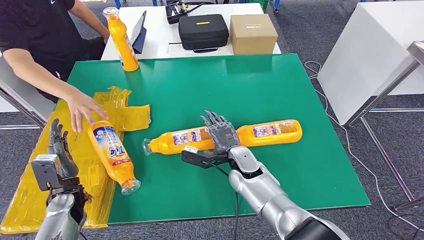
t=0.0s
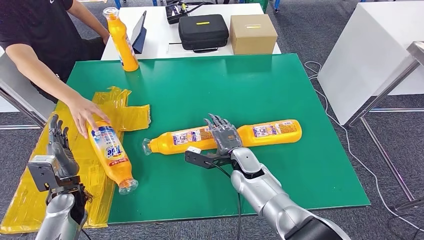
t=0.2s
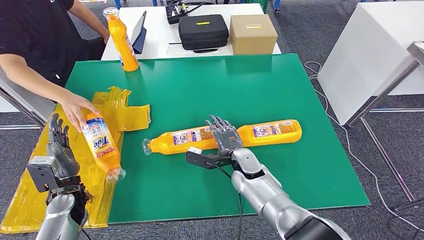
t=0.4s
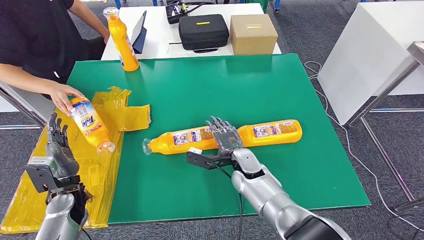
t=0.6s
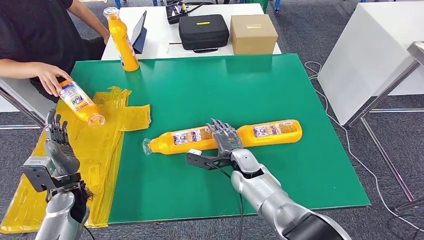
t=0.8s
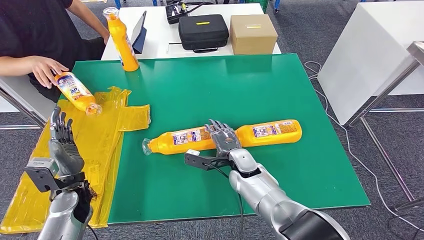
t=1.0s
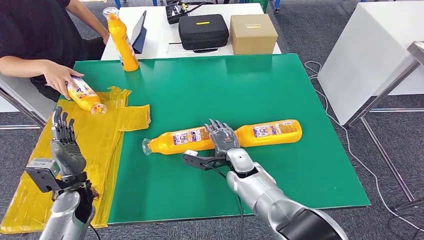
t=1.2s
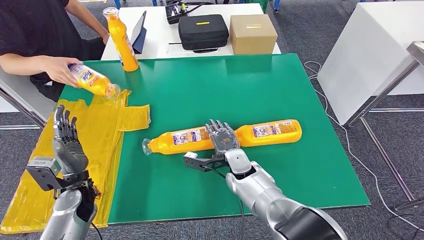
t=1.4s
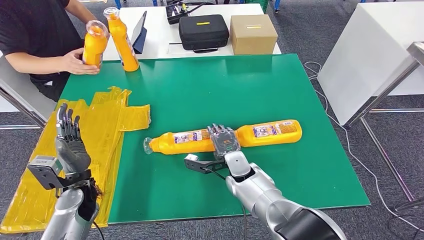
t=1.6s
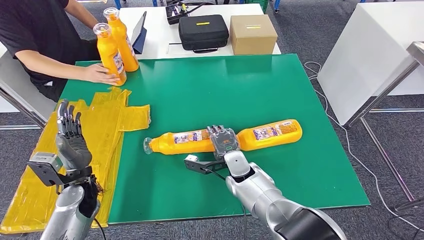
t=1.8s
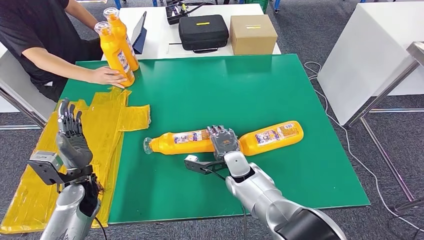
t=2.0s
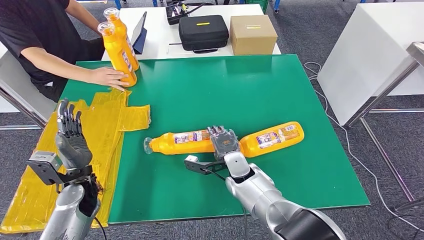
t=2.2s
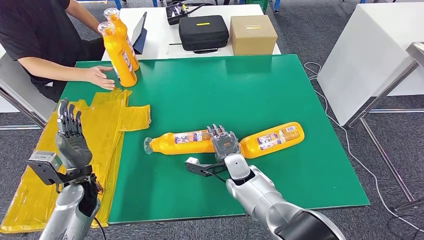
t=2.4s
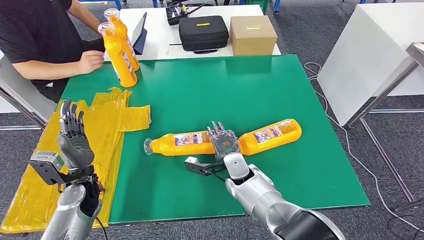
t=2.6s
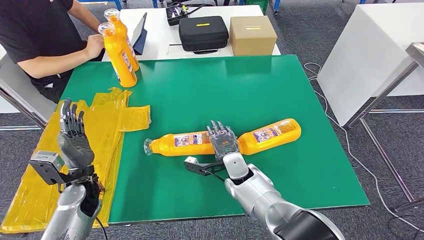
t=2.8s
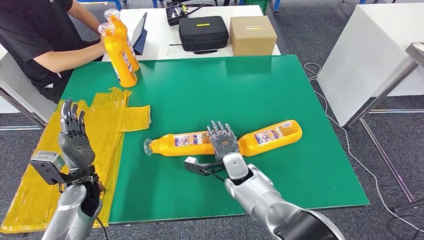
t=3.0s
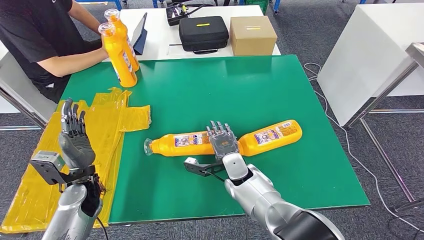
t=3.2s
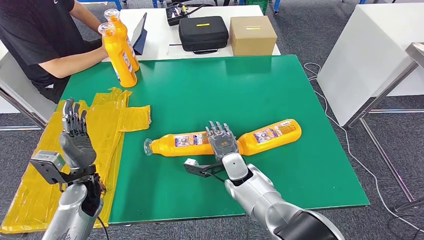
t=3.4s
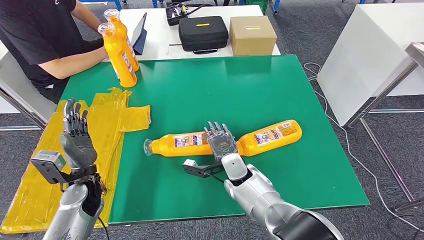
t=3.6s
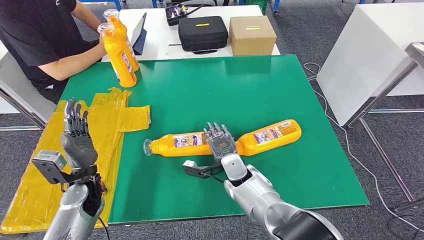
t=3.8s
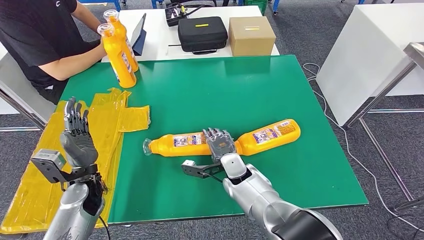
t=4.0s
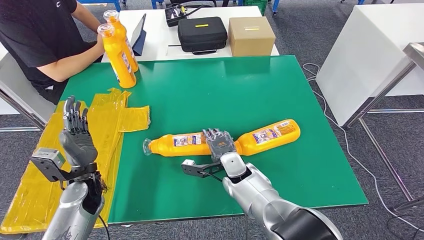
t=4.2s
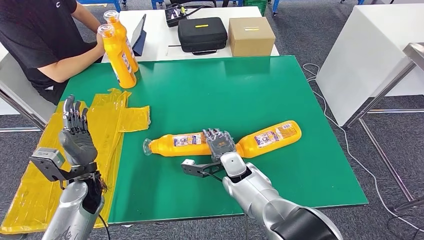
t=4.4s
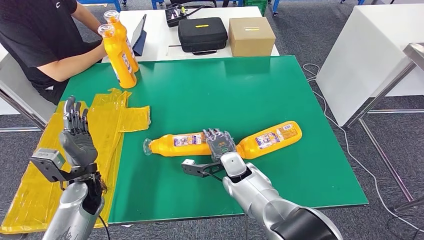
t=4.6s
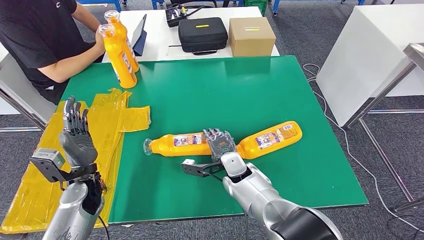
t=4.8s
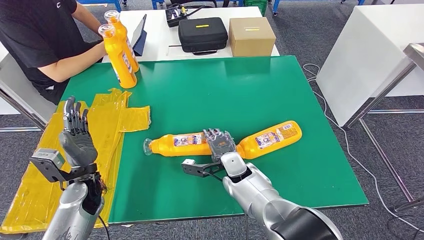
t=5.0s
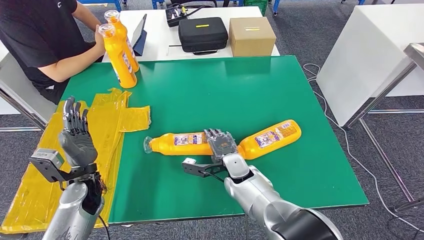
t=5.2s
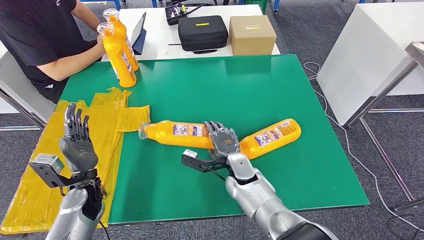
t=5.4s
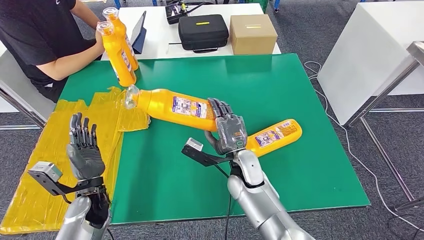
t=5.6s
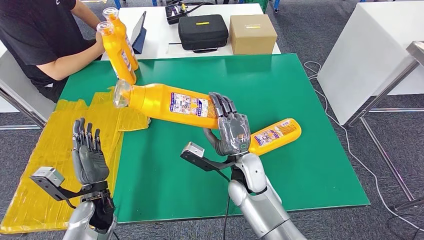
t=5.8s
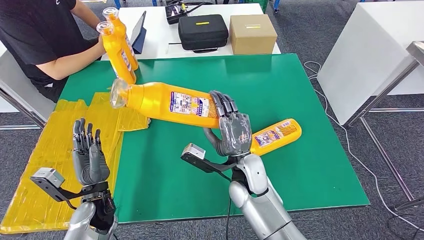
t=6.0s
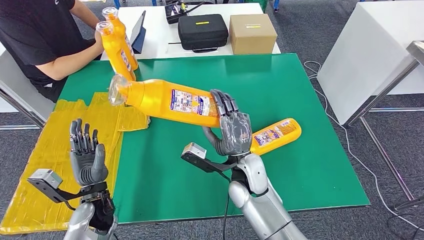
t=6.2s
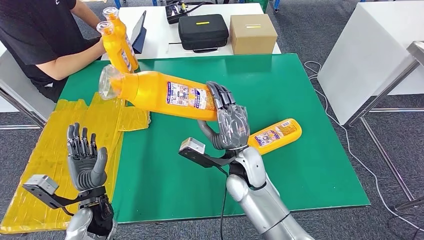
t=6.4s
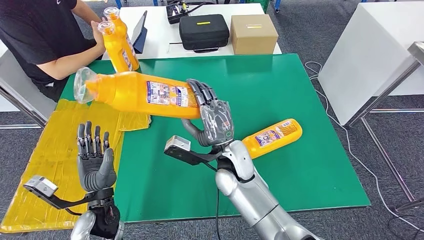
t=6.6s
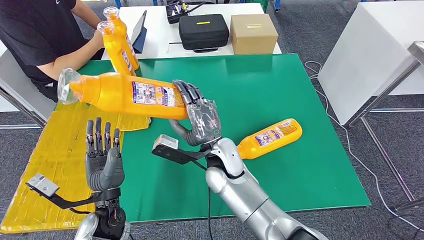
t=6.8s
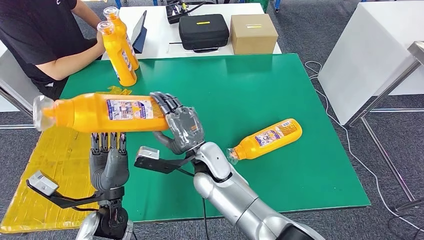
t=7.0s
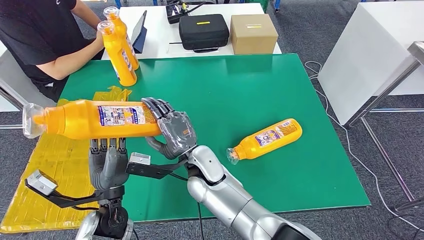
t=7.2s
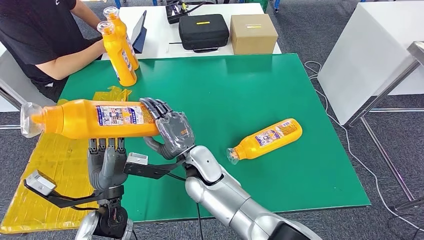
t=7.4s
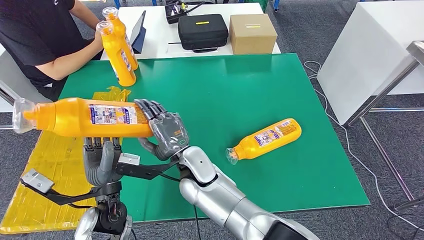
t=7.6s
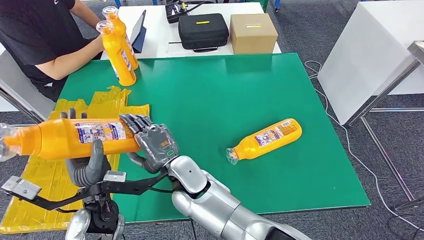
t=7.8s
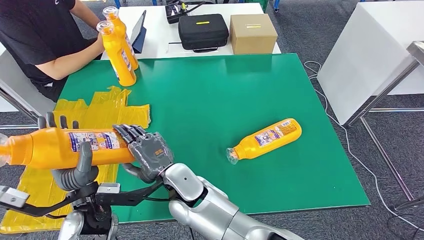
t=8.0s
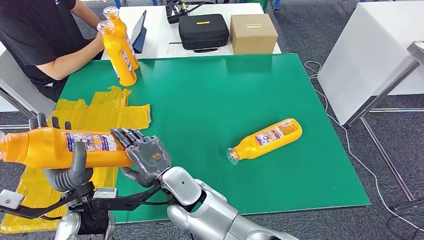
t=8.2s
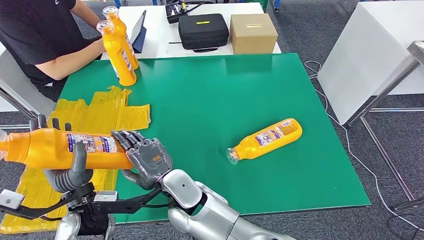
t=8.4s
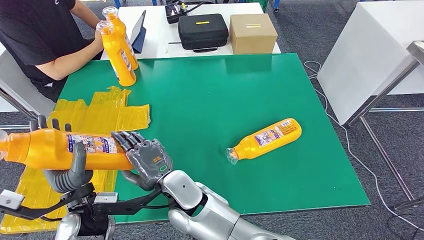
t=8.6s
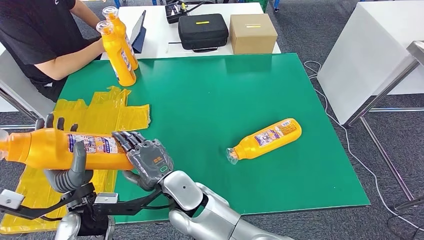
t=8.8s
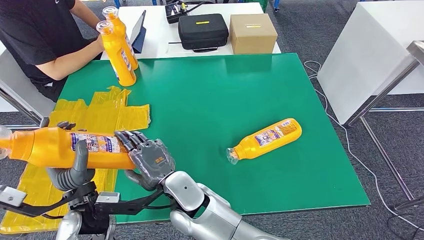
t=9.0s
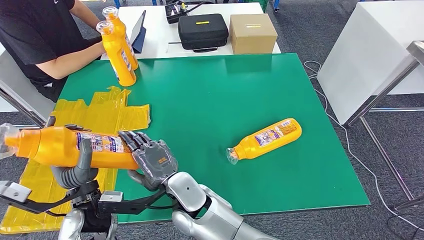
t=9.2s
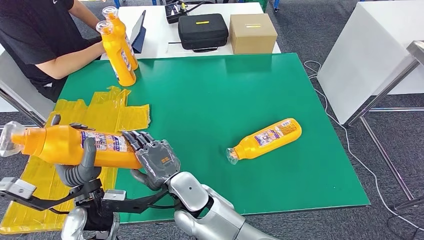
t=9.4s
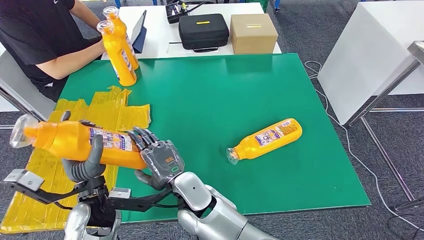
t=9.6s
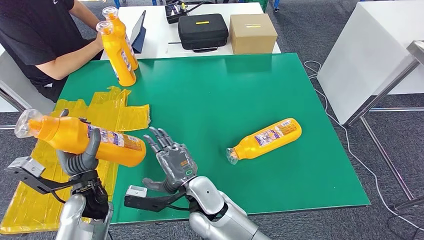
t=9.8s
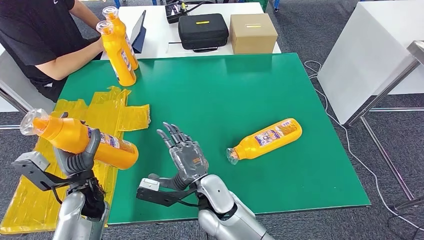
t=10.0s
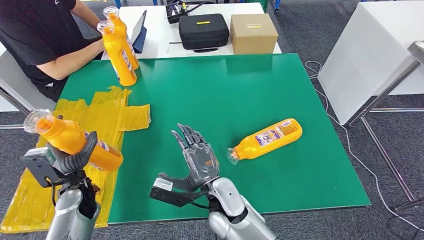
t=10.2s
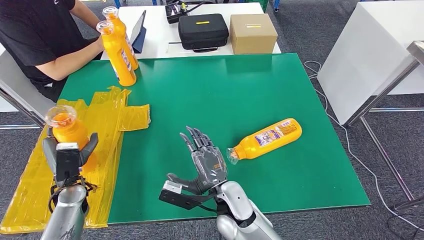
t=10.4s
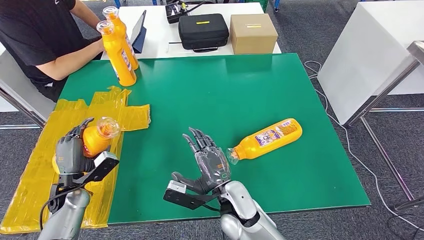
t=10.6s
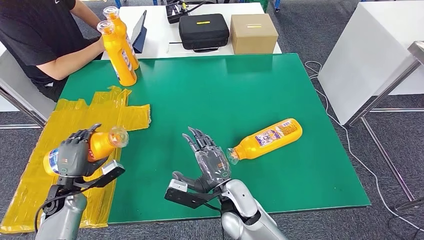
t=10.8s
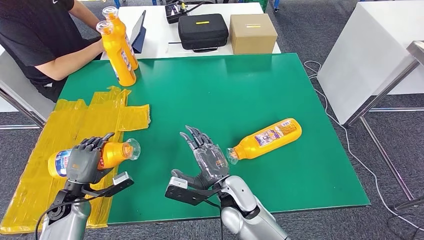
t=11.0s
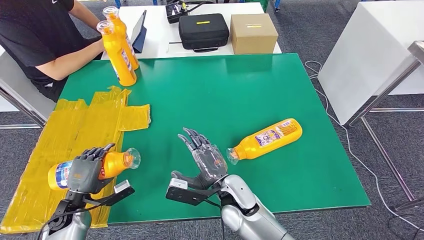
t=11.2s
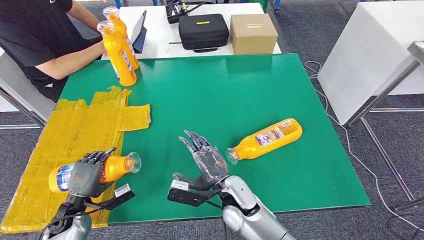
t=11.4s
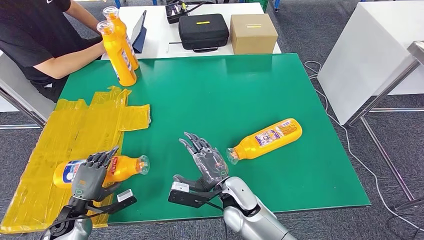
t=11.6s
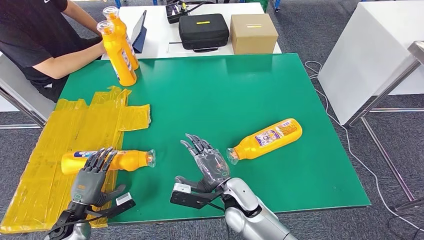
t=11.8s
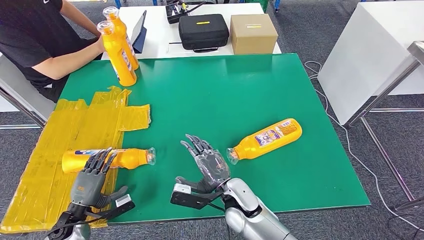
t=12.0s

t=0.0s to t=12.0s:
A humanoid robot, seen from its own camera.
Step, t=0.4s to t=7.2s: Pick up the bottle from the table.
t=0.0s to t=1.6s: The left hand goes some 5 cm to the right.
t=1.6s to t=4.4s: The hands move only a little.
t=9.0s to t=10.4s: The right hand travels to the right by roughly 10 cm. Meanwhile the left hand travels to the left, forward and downward by some 15 cm.
t=10.4s to t=12.0s: The left hand heads downward and backward, covering about 10 cm.

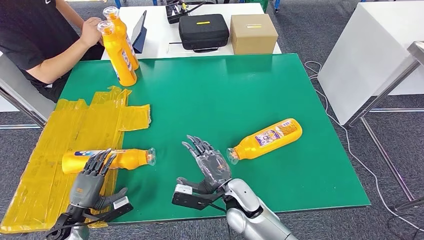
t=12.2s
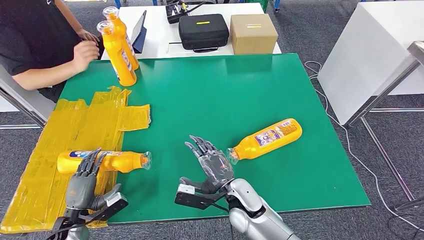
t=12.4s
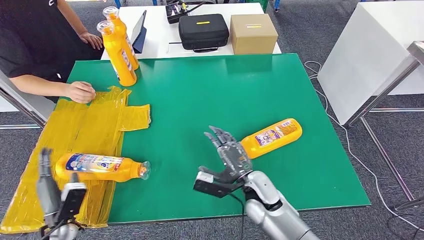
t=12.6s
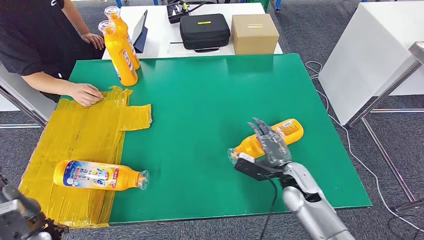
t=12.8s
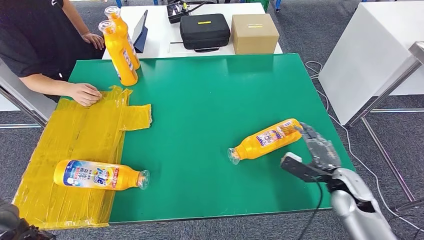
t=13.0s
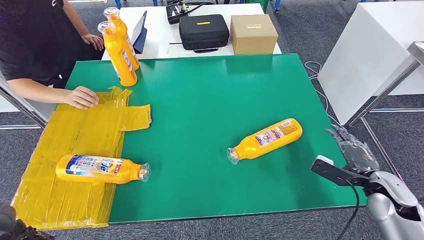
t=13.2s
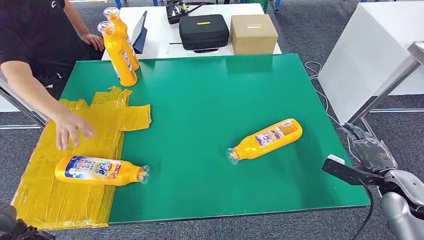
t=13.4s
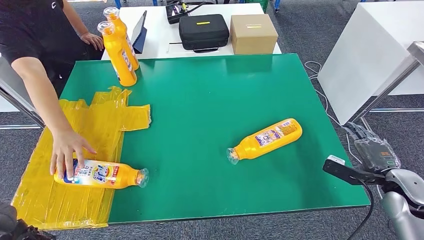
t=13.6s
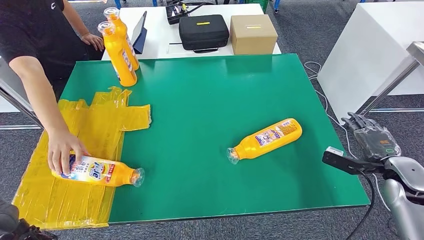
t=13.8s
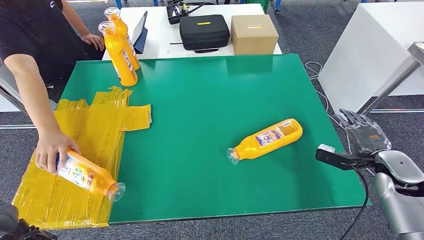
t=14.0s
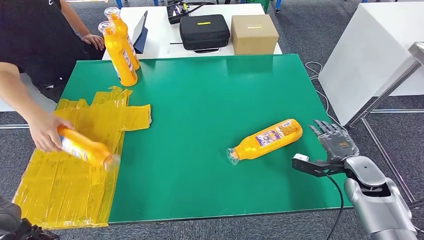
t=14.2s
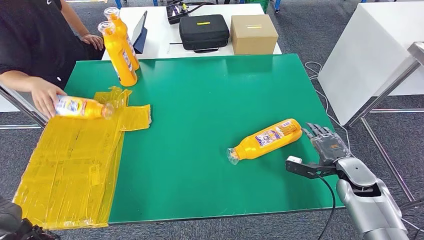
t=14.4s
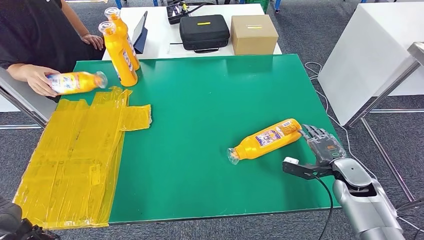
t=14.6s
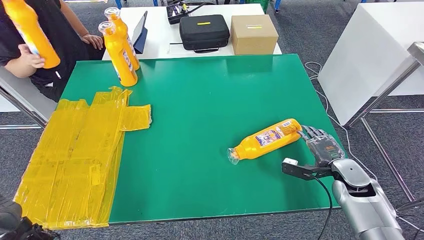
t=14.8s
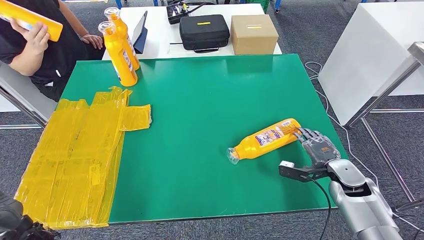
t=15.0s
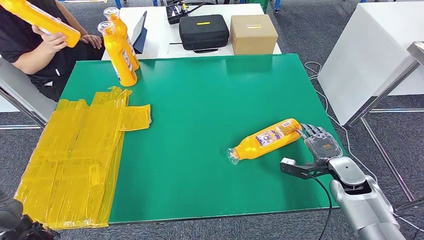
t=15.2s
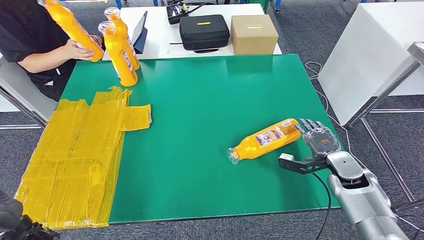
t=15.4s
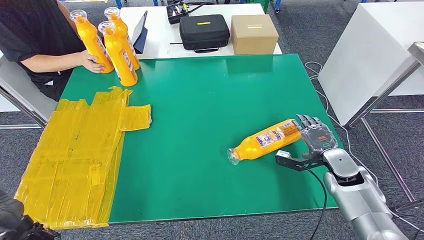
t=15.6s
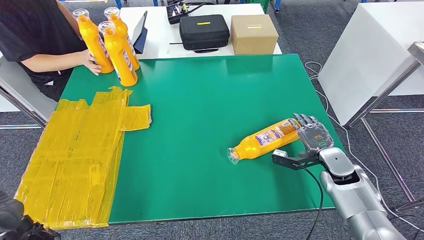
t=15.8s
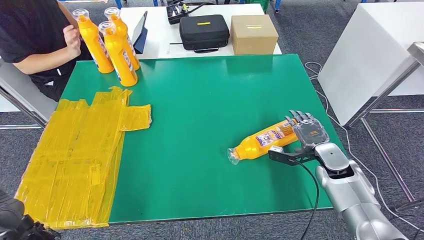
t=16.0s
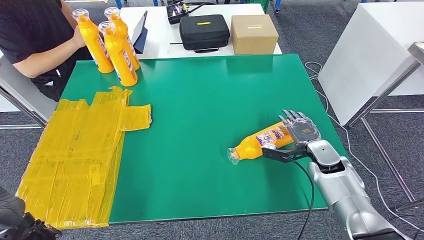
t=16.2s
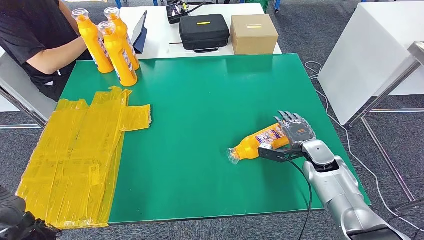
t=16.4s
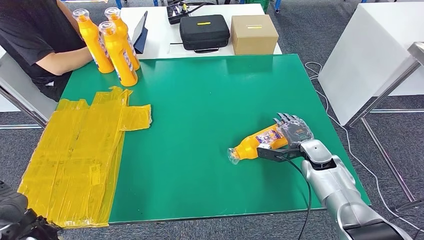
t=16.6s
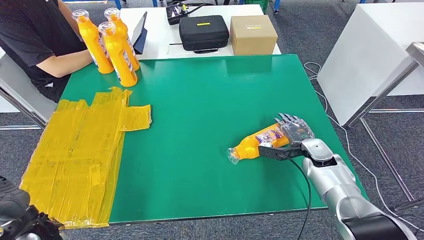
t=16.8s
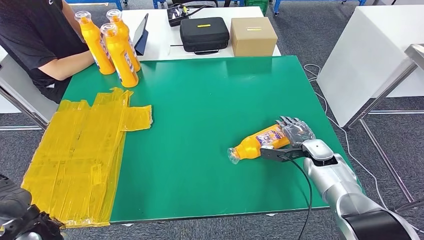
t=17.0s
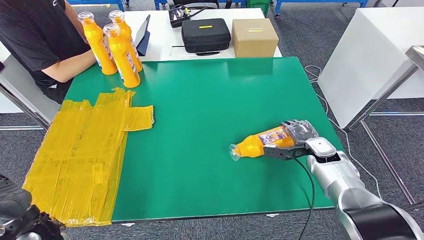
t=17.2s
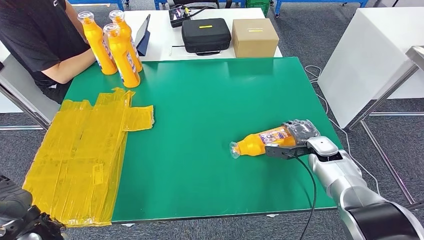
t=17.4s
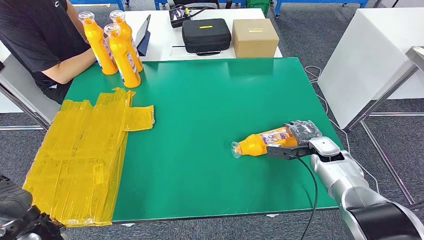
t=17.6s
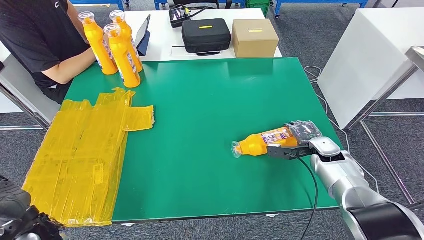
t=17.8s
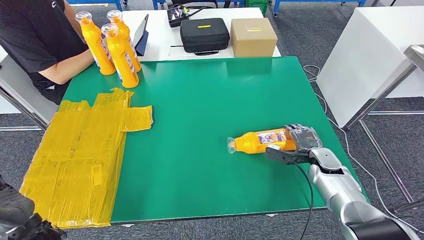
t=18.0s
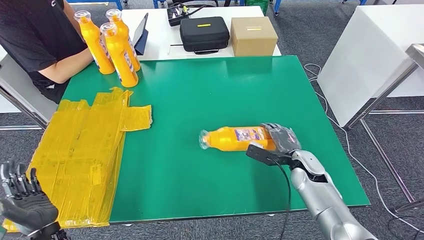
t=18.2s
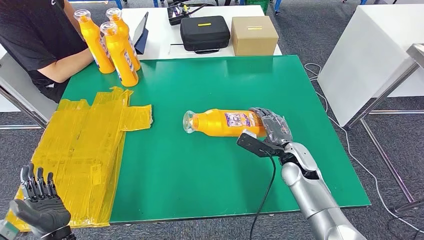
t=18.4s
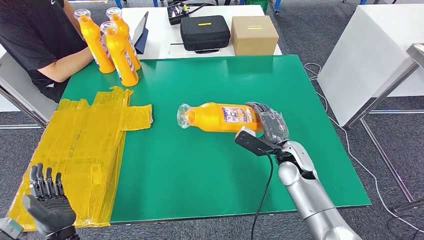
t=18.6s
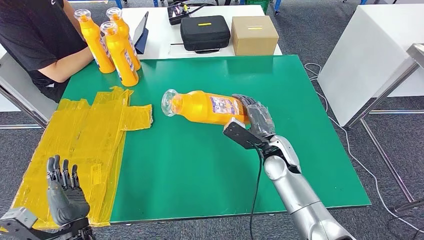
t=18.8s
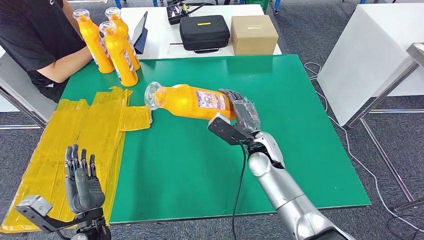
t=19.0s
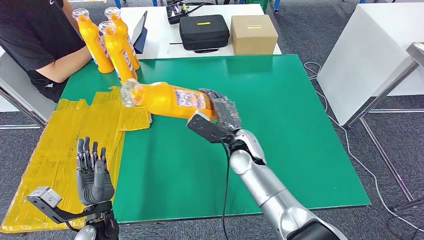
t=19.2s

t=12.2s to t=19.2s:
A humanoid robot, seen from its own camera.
t=13.6s to t=15.0s: The right hand shifts some 10 cm to the left, forward and downward.
t=15.0s to t=16.4s: The right hand heads forward and to the left, covering about 10 cm.
